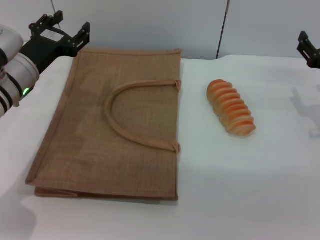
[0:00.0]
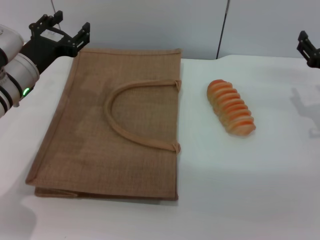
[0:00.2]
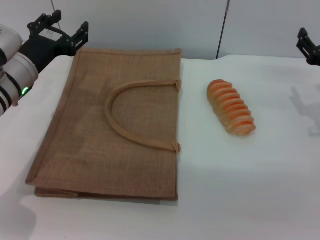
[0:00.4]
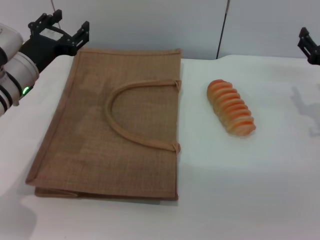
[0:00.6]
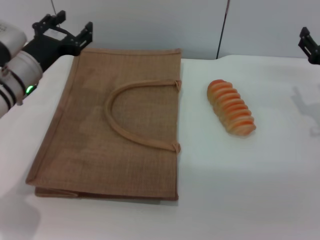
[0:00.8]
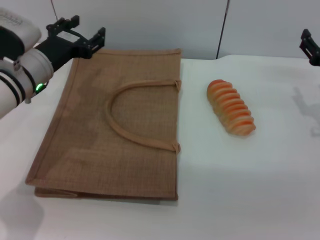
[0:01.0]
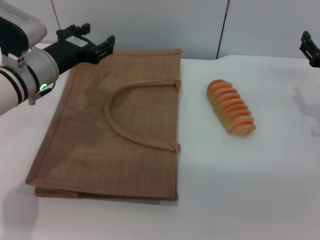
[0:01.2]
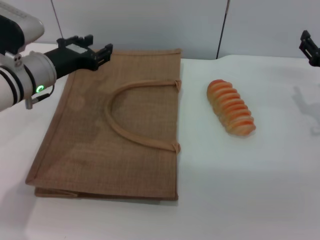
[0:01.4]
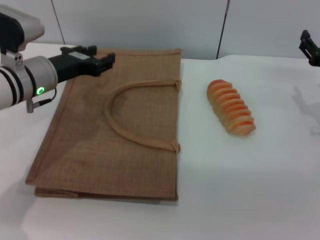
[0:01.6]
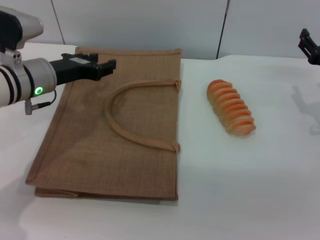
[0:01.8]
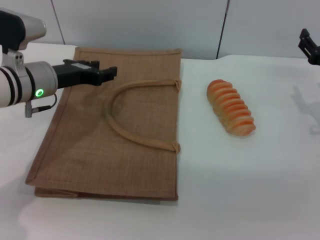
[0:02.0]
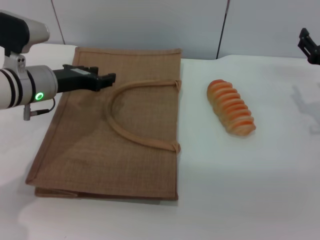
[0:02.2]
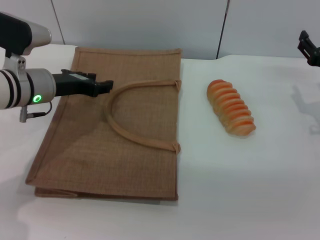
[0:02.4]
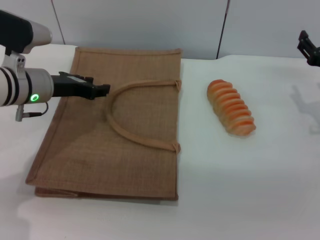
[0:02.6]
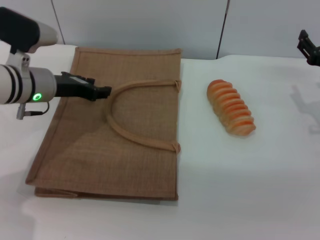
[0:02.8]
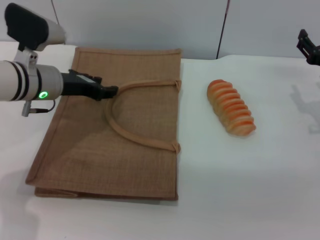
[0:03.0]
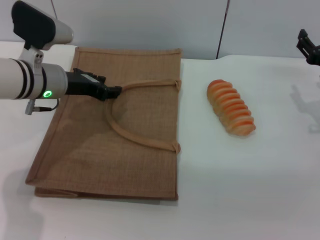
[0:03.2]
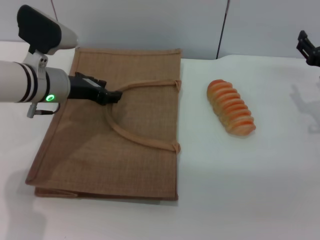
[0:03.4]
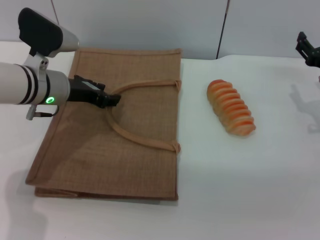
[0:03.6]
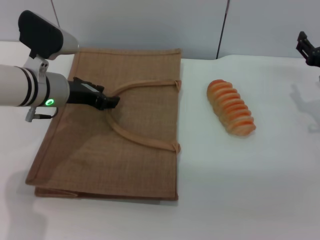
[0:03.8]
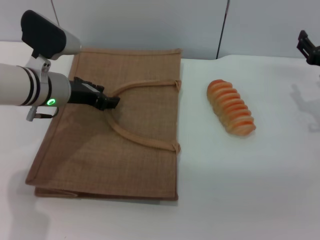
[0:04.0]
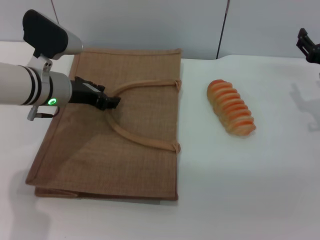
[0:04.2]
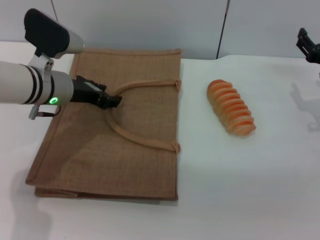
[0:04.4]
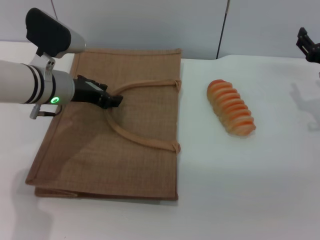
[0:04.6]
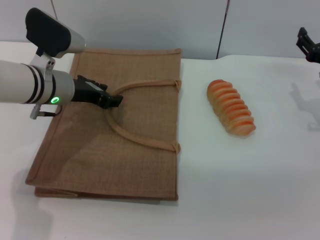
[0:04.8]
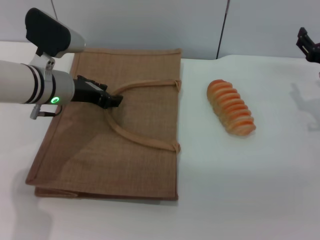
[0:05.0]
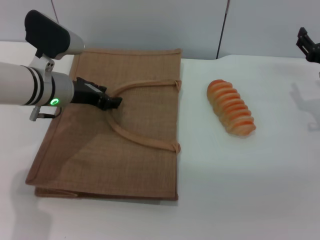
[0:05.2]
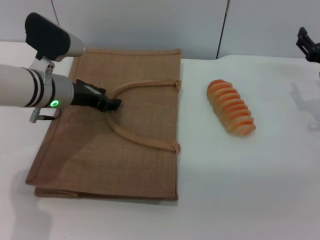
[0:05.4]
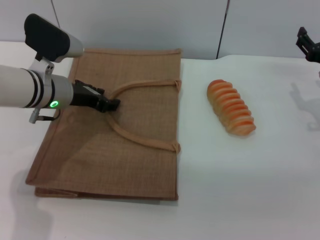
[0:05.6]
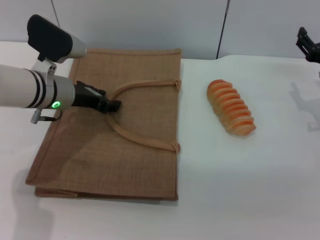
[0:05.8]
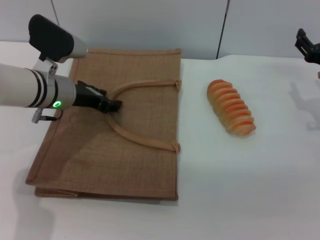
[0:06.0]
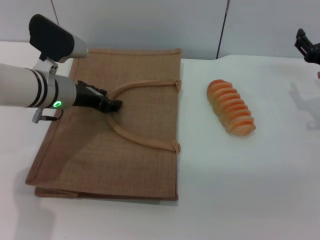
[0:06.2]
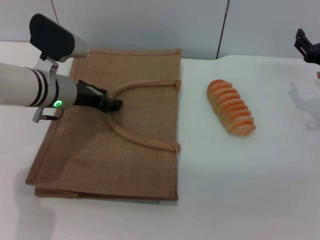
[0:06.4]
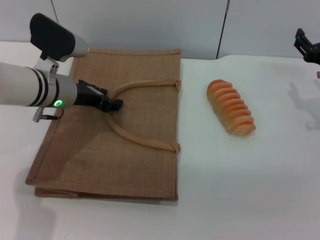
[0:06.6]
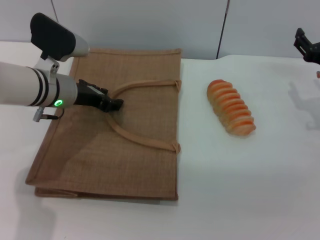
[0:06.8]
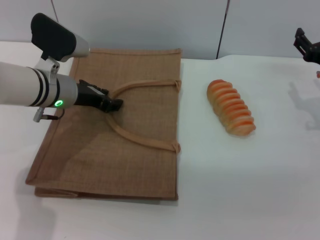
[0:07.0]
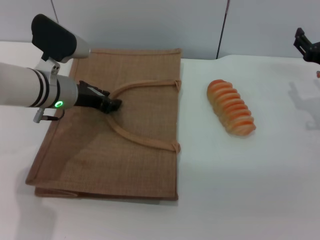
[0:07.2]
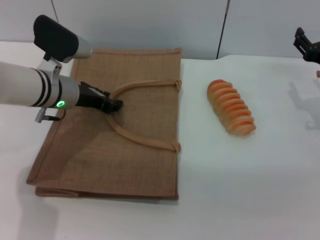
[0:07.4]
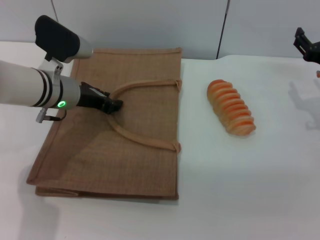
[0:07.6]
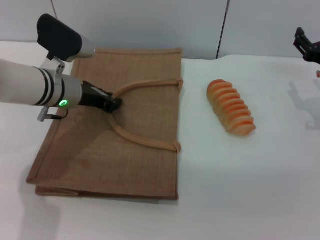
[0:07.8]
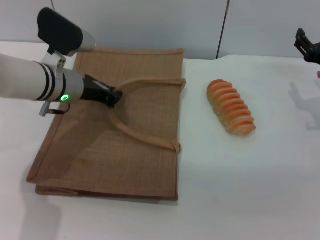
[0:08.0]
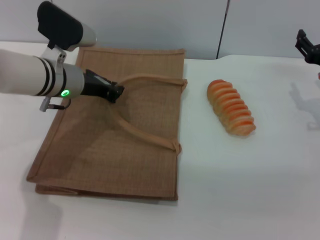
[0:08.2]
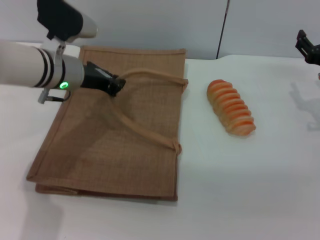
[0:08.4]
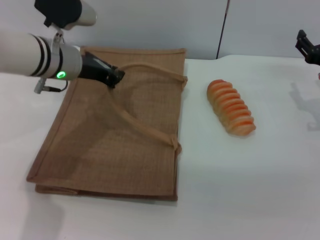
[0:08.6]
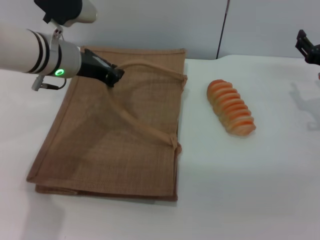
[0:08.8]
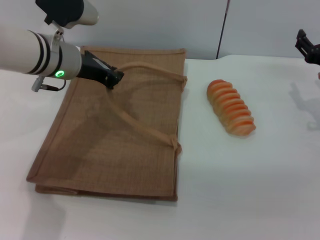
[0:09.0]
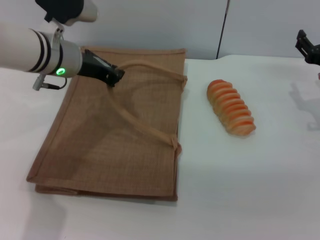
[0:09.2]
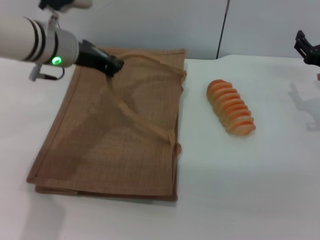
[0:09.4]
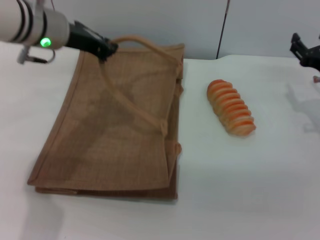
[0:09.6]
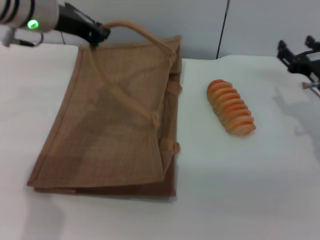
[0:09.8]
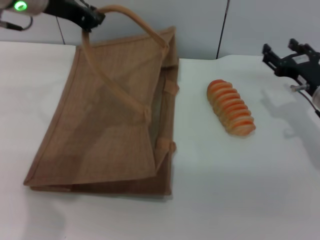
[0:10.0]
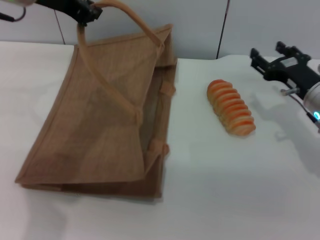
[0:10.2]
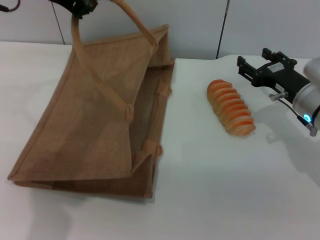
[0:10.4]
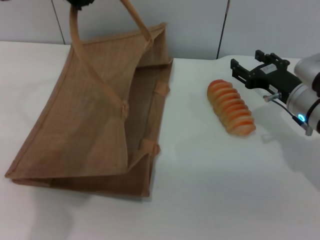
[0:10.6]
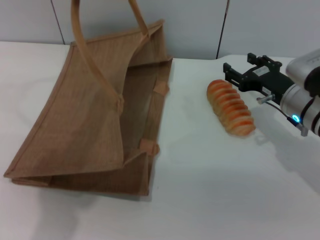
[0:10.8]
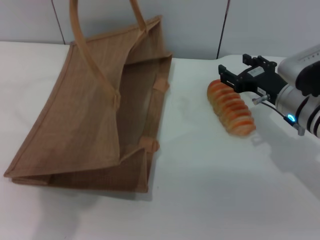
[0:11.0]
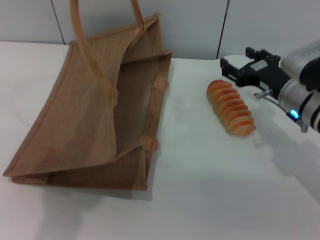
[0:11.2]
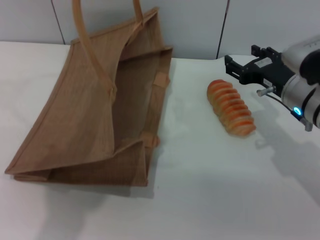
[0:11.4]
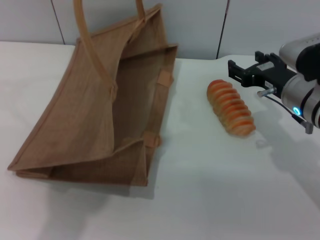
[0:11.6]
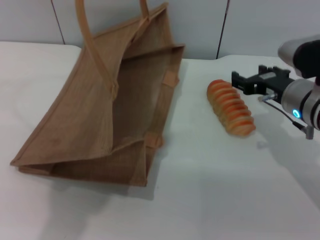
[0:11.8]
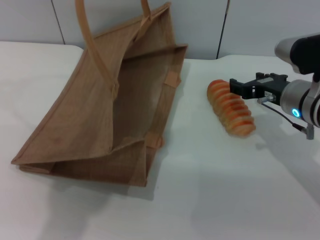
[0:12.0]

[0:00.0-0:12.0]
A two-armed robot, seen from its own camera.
Task of the whole recording: pick up the bread from the table and place it in the brown handbag.
Step, 0:00.0 to 0:09.6: Lift the woven bag with the left gripper to open it.
0:01.6 to 0:03.0: The grippers stay close to where they were, moving slightly.
0:03.0 to 0:04.4: The grippers move only a little.
0:04.4 to 0:06.0: The two grippers keep their place.
0:06.0 to 0:07.6: The two grippers keep their place.
0:07.6 to 0:09.0: The left gripper shifts approximately 5 cm upward.
0:09.0 to 0:10.4: The left gripper is displaced upward by approximately 15 cm. The right gripper travels to the left by about 5 cm.
0:10.4 to 0:12.0: The left gripper goes roughly 5 cm upward; the right gripper shifts by roughly 5 cm.

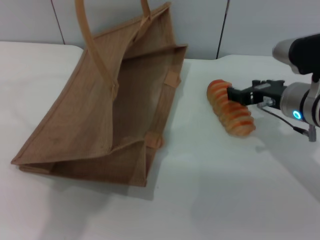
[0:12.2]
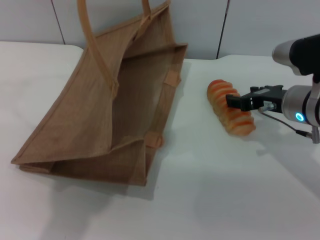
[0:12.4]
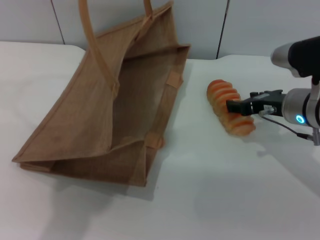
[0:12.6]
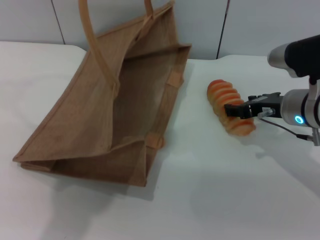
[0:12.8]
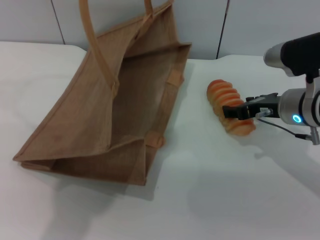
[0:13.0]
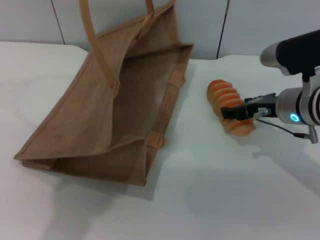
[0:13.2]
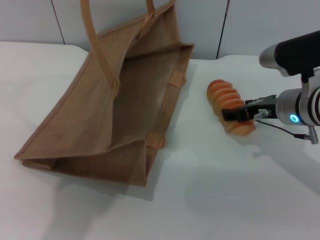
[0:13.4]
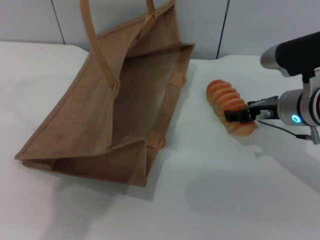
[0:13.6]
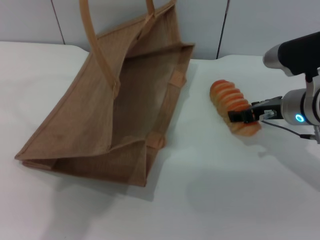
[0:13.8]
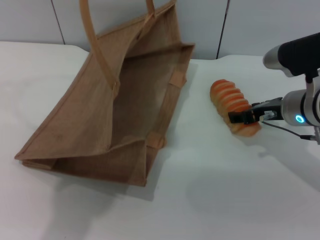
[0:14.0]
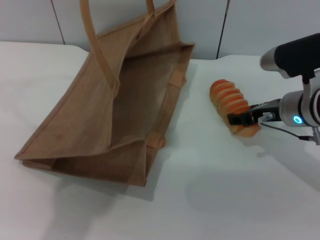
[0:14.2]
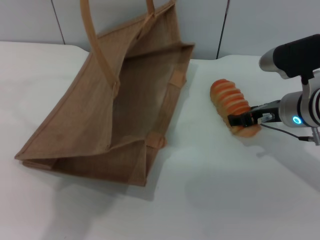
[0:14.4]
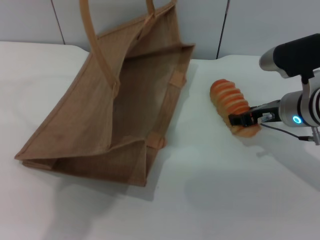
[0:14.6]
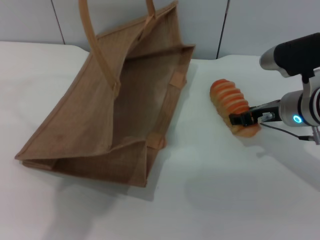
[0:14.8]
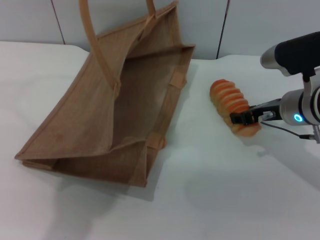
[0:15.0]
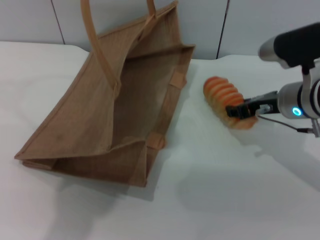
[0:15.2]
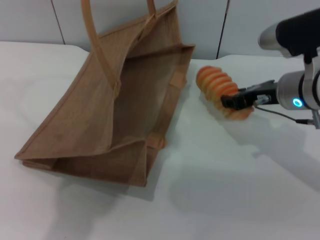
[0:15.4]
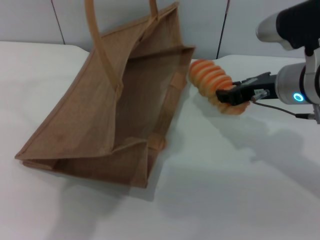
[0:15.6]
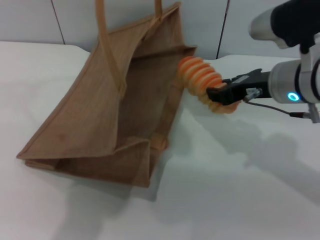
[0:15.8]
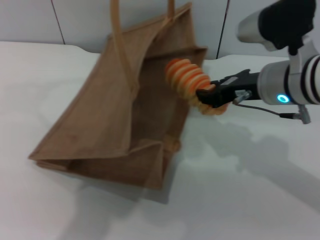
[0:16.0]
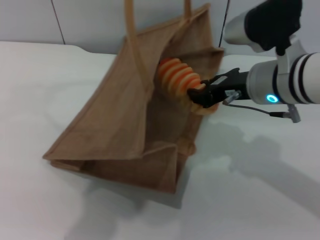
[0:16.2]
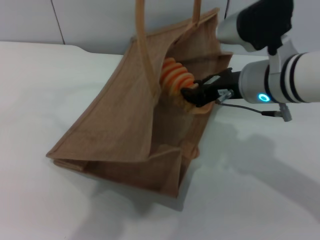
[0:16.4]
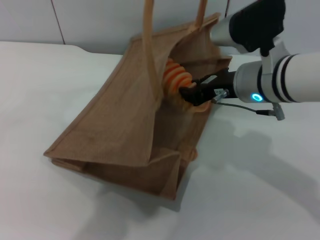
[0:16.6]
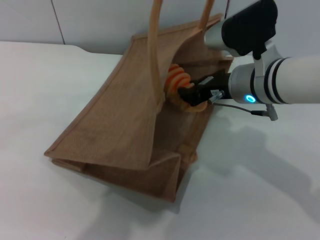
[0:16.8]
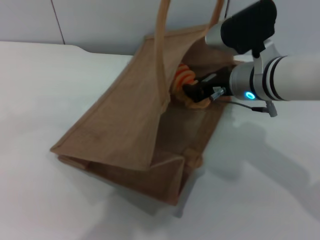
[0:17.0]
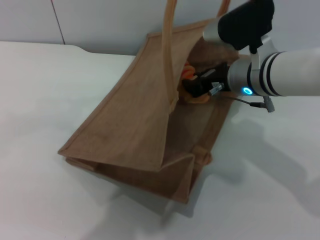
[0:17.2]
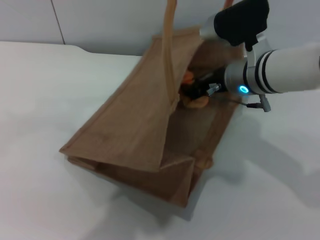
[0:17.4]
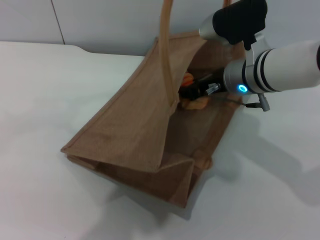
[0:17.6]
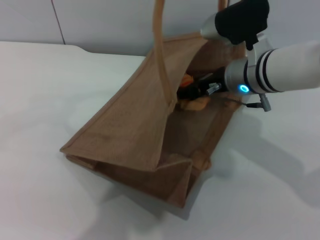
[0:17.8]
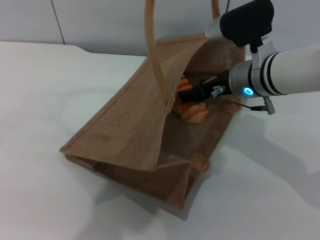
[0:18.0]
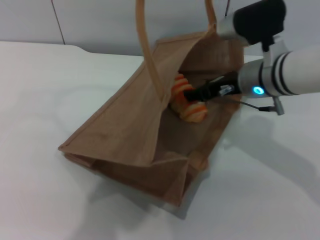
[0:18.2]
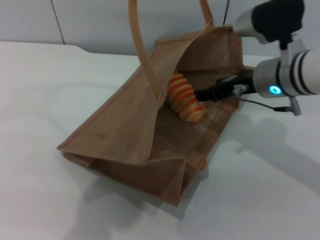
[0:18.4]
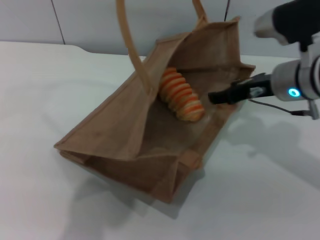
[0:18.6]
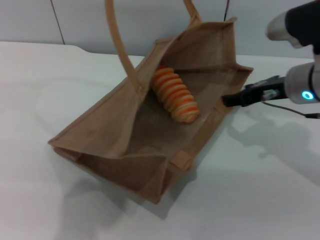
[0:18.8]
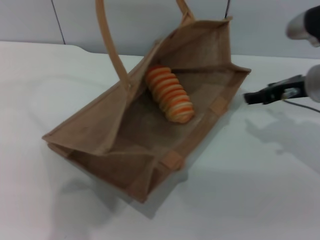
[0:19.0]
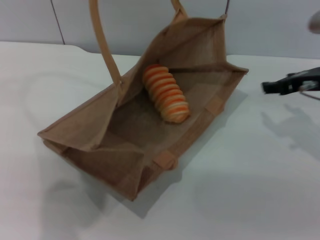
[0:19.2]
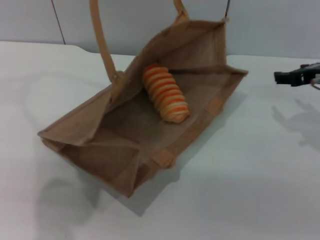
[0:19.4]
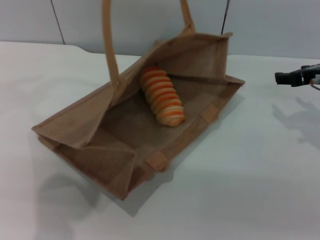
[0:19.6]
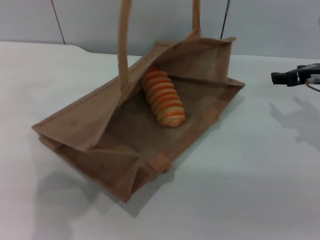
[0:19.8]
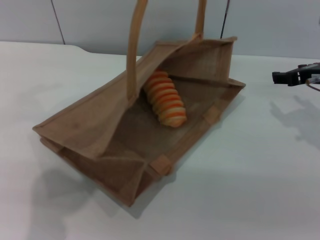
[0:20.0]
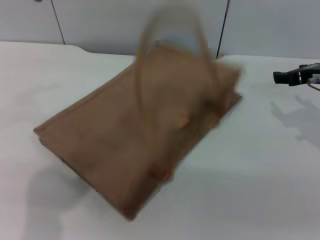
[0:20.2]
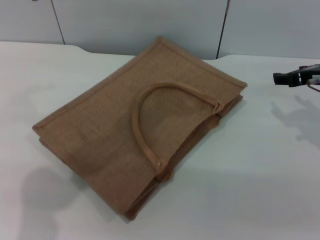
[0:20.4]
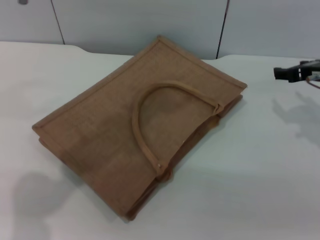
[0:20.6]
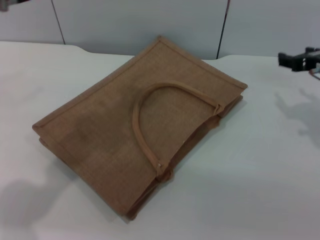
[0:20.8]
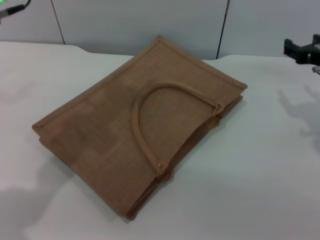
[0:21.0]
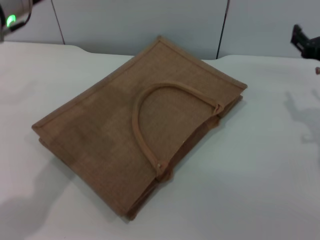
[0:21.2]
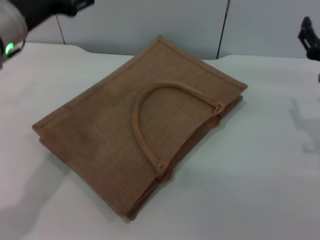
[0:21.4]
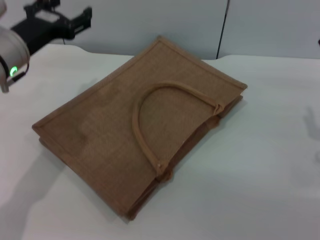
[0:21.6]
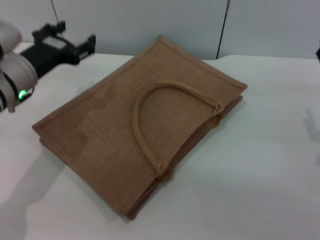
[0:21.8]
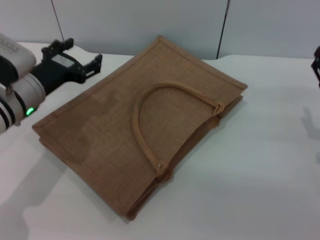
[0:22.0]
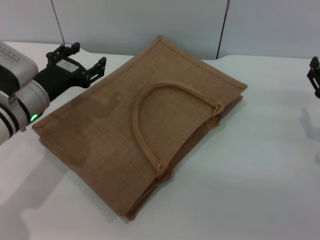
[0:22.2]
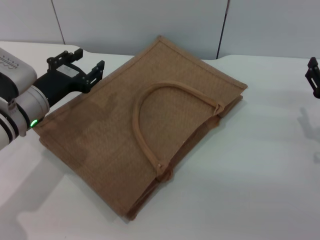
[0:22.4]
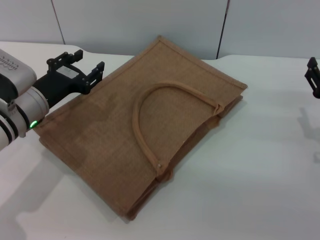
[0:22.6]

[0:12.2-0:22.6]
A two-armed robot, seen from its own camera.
Task of the whole recording: pick up the bread from the table and place it in the brown handbag.
Step, 0:12.2 to 0:15.6: Pick up the bread with the right gripper.
Step, 0:15.8 to 0:18.6: Place the bread into the woven bag with the right gripper.
Step, 0:18.8 to 0:20.8: Lower the woven bag with the left gripper to close it.
0:12.2 to 0:13.6: The grippers stay close to where they were, moving slightly.
0:13.6 to 0:15.2: The right gripper closes.
0:15.2 to 0:16.6: The right gripper is displaced to the left by roughly 5 cm, and closes its fingers, while the left gripper heads to the right, covering about 10 cm.
0:16.6 to 0:18.2: The right gripper opens up.
0:18.2 to 0:19.6: The right gripper heads to the right, covering roughly 15 cm; the left gripper moves to the left, some 5 cm.
0:19.6 to 0:21.2: The left gripper heads downward and to the left, covering approximately 10 cm, and opens.
0:21.2 to 0:22.6: The right gripper goes approximately 10 cm downward. The left gripper heads downward, covering some 15 cm.
